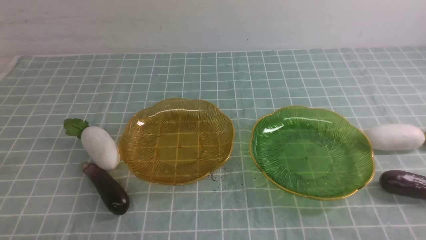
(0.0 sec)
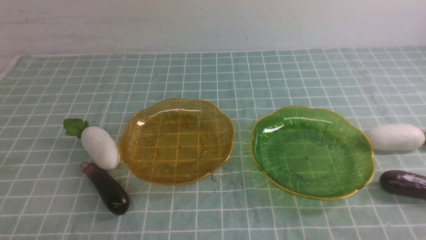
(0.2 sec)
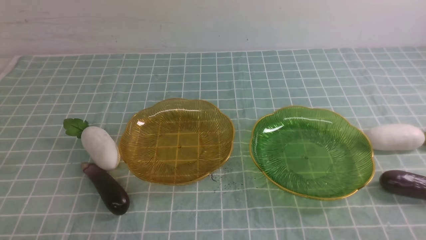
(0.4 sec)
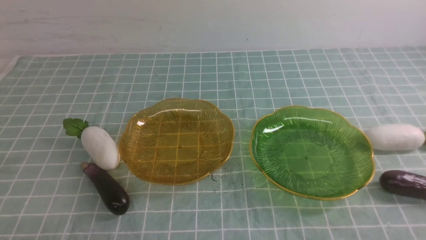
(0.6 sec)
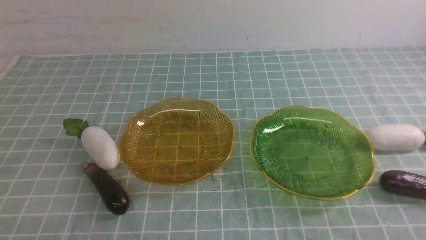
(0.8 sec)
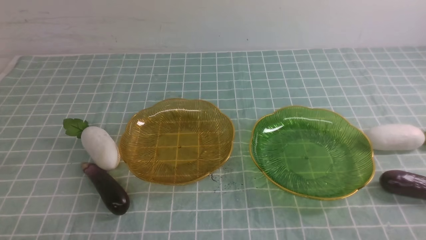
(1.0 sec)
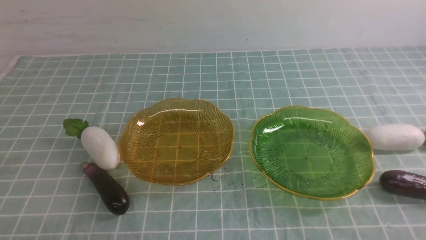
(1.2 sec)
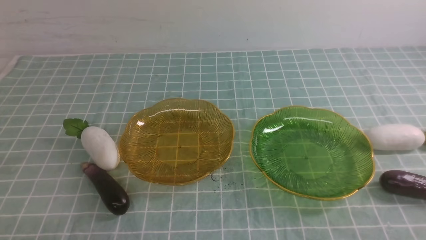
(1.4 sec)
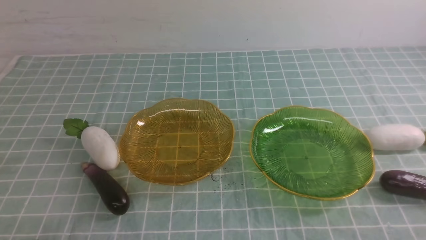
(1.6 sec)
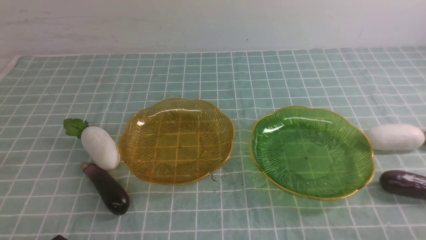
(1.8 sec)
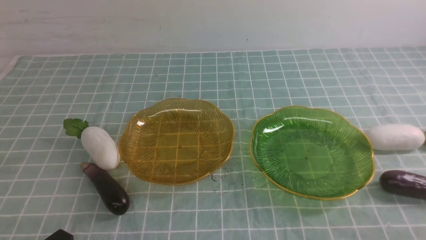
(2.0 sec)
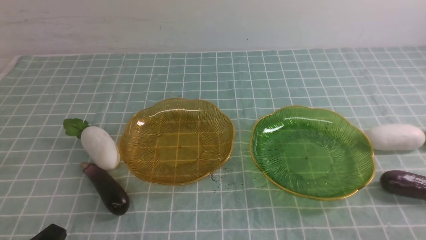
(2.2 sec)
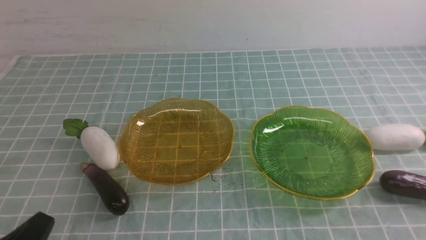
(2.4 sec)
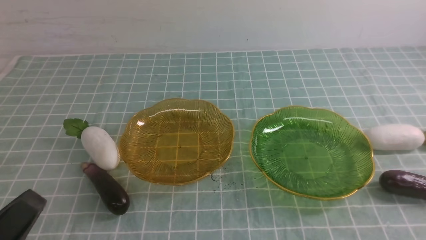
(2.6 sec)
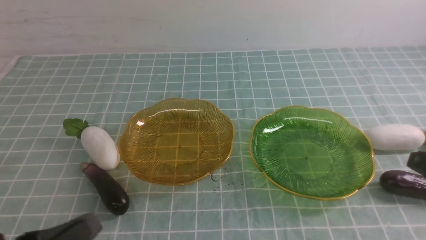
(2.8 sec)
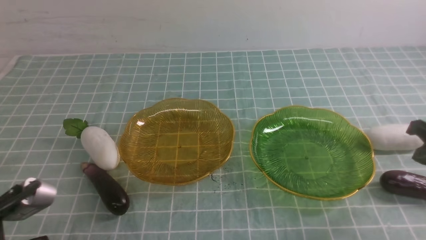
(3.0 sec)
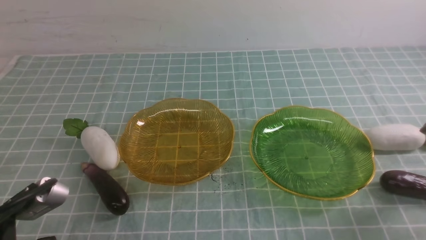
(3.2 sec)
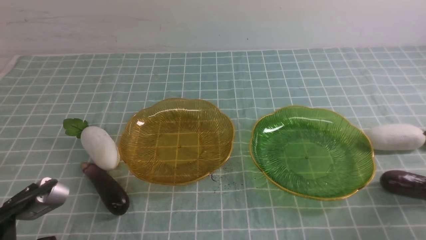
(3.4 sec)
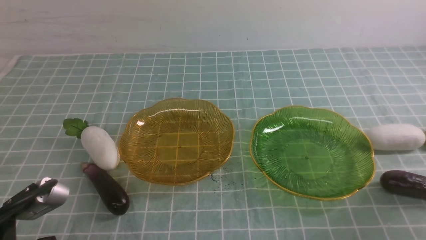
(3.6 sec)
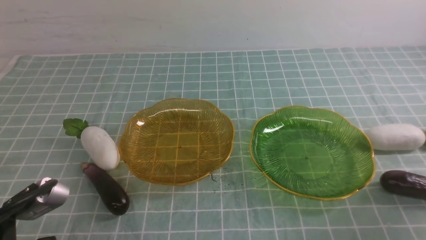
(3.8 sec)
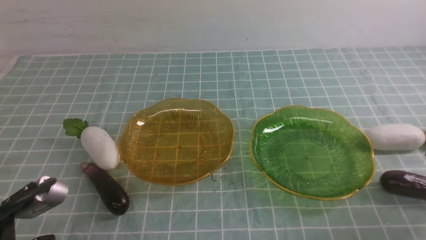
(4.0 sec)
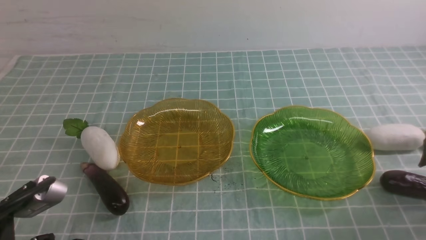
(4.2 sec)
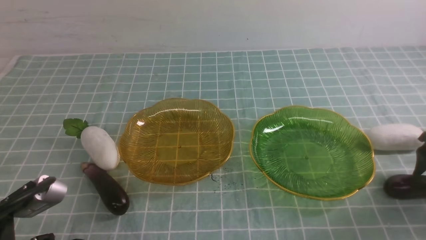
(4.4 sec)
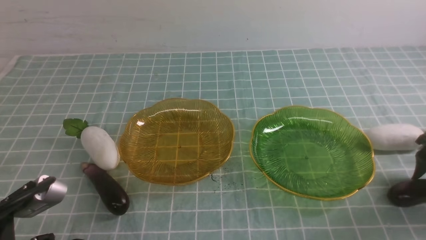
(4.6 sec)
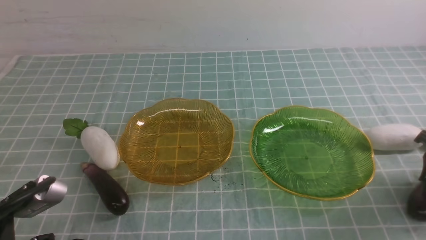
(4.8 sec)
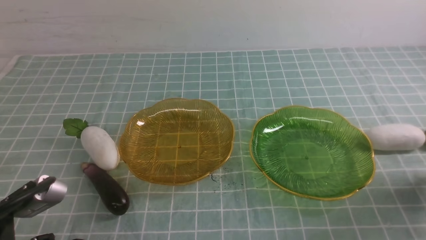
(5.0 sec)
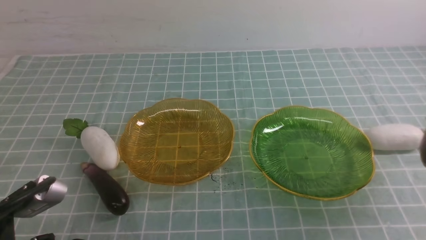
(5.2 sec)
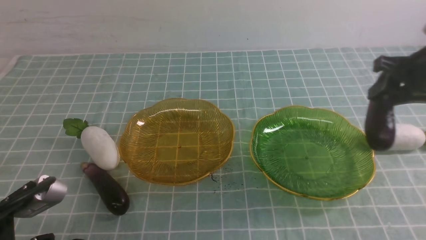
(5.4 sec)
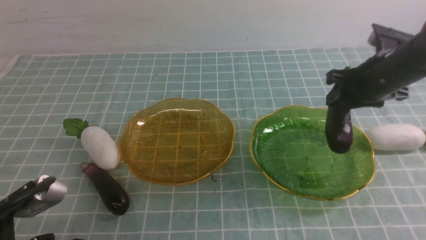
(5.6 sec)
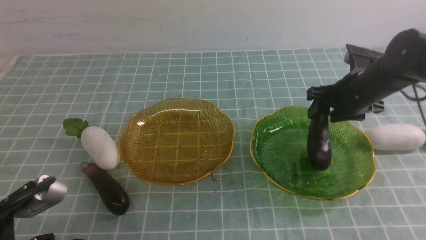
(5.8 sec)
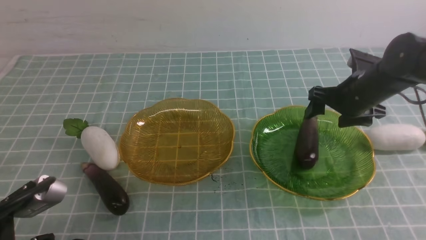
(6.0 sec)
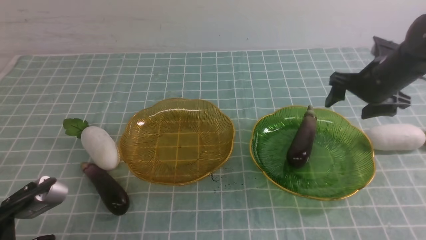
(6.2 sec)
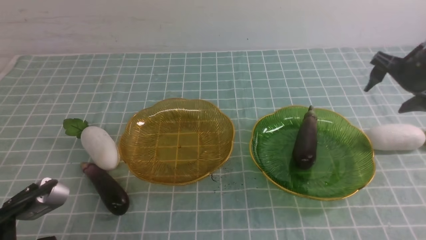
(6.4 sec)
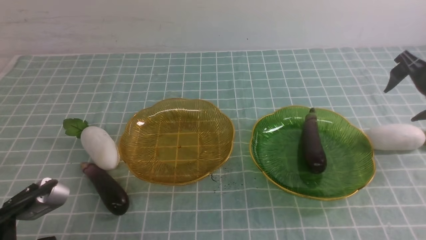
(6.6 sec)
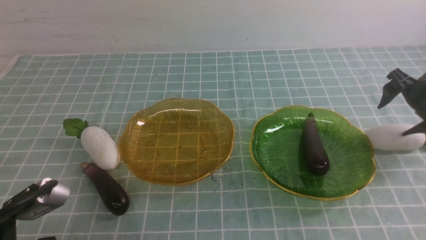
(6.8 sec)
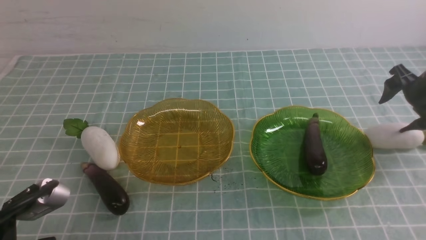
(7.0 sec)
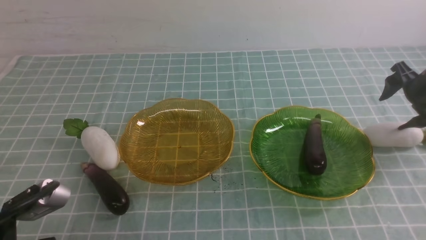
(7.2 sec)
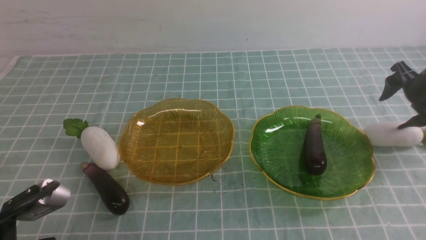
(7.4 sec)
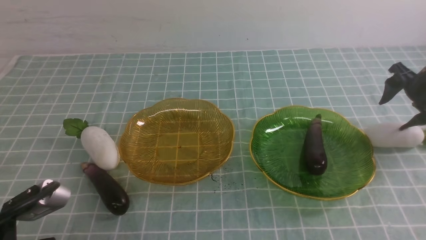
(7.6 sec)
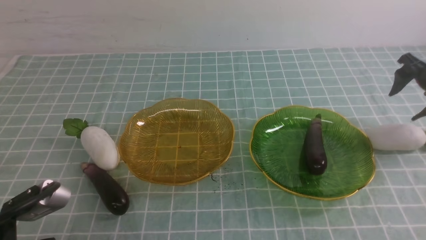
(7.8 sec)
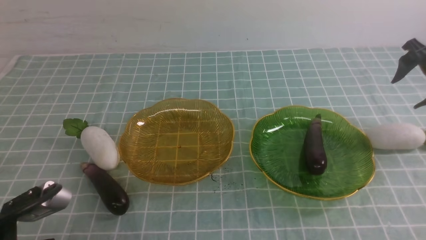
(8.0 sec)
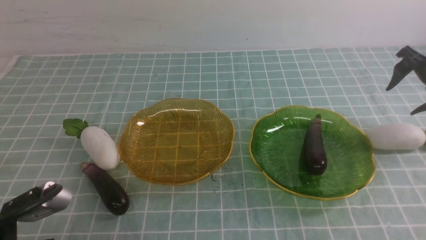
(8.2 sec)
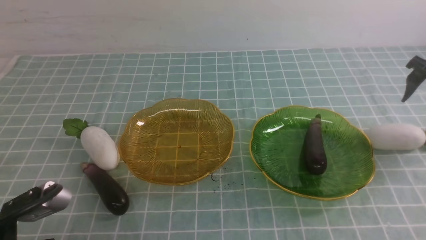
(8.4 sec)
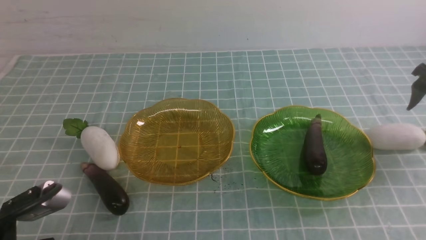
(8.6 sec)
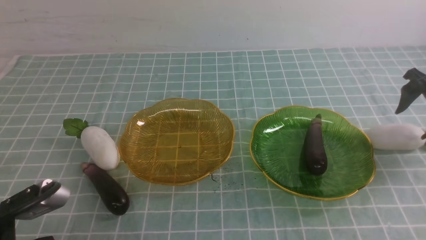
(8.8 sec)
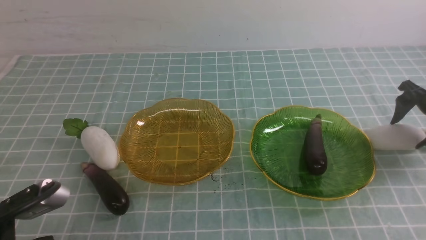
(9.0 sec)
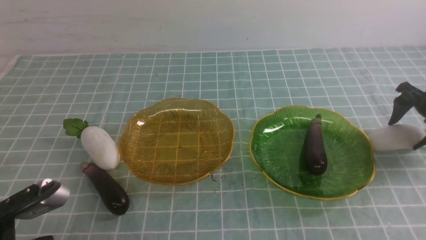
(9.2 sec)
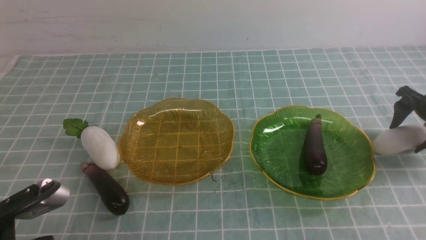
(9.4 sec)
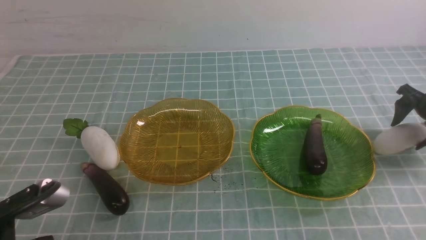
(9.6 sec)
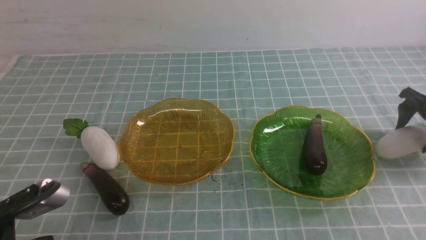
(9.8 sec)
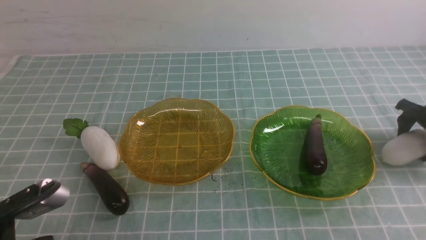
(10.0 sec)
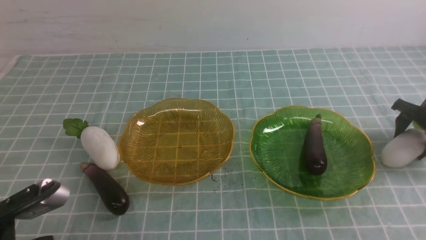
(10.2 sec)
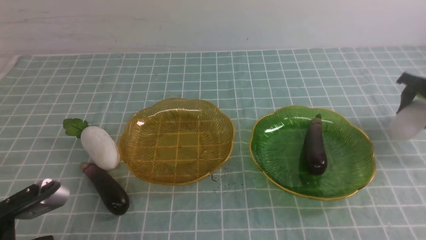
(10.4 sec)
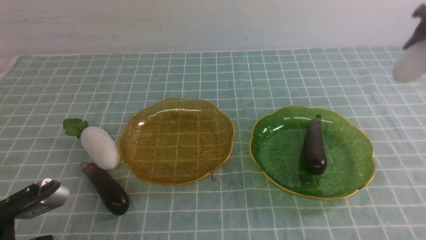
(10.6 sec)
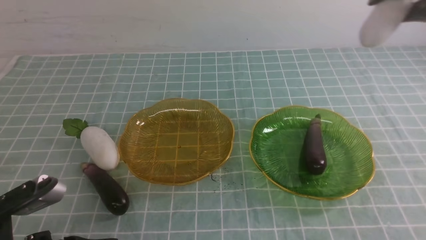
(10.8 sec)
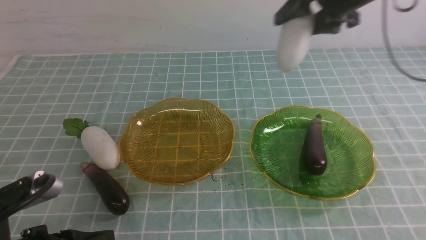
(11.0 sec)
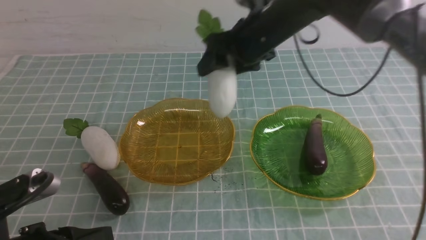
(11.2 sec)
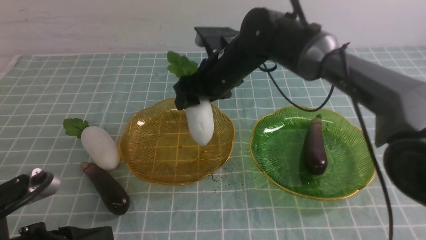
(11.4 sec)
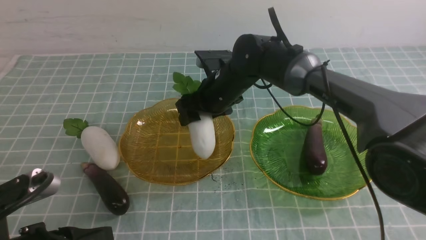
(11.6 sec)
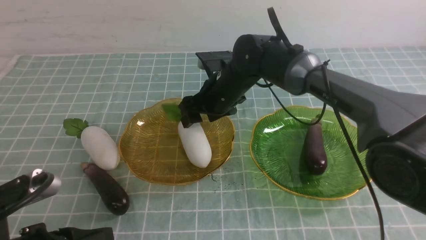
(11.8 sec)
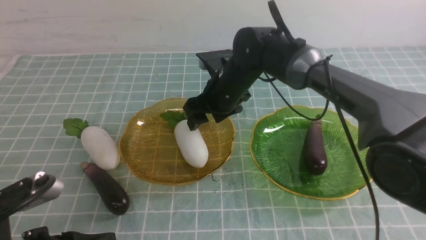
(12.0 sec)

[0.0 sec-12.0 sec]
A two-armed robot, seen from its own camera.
Step, 0.0 sec to 6.0 sec: use the right arm to grab an eggplant and put it into the right plate.
Step, 6.2 sec to 11.8 sec: use the right arm to grab a radish and put it into the left plate.
1.6 sec to 3.0 sec: The left gripper goes about 5 cm upward. The right gripper moves forward and upward, about 20 cm.
3.0 sec to 4.4 sec: The right gripper moves forward, to the right and downward, some 15 cm, and opens its fingers.
4.4 sec to 6.0 sec: The right gripper travels to the left and forward by about 20 cm, and closes and opens again.
6.0 sec to 7.6 sec: The right gripper travels to the right by about 15 cm.
7.6 sec to 9.0 sec: The grippers stay close to where they were, moving slightly.
9.0 sec to 10.4 sec: There are only small adjustments of the grippers.
10.4 sec to 12.0 sec: The right gripper shifts approximately 40 cm to the left.

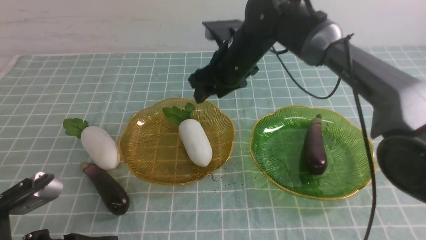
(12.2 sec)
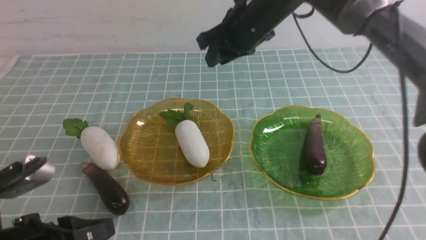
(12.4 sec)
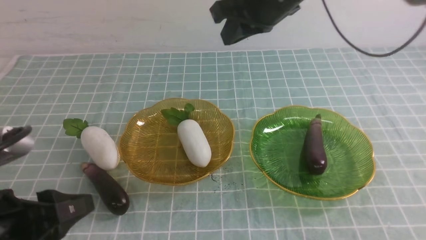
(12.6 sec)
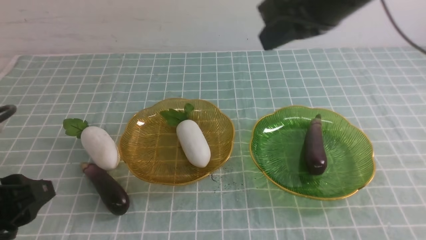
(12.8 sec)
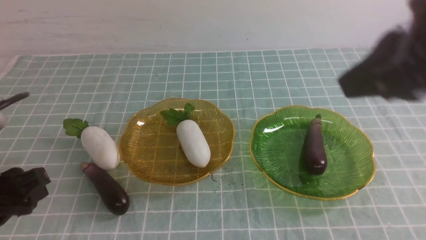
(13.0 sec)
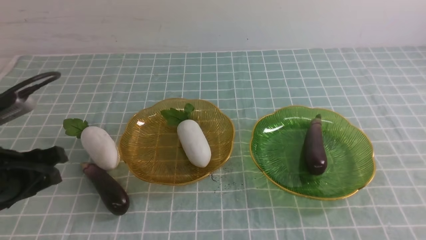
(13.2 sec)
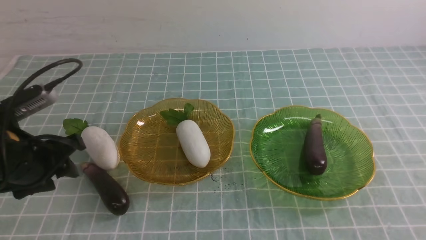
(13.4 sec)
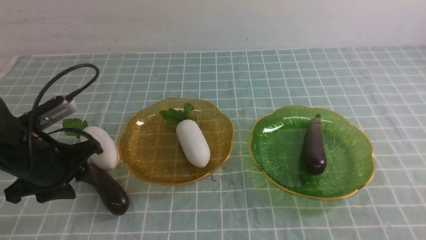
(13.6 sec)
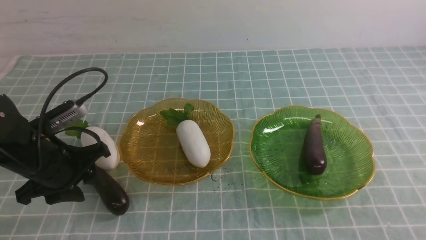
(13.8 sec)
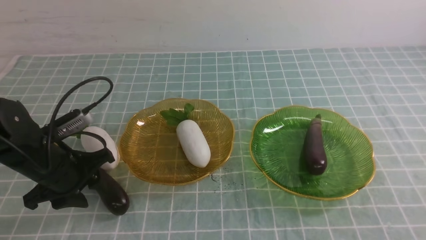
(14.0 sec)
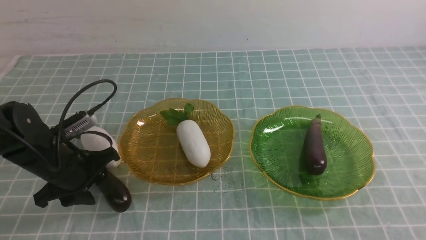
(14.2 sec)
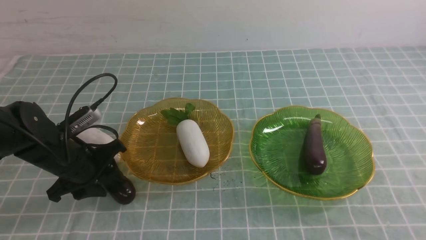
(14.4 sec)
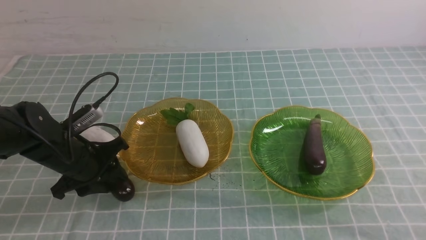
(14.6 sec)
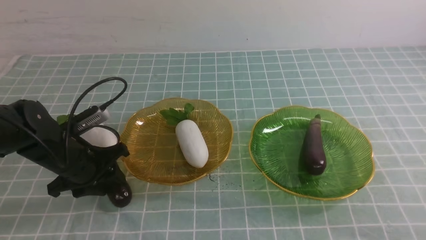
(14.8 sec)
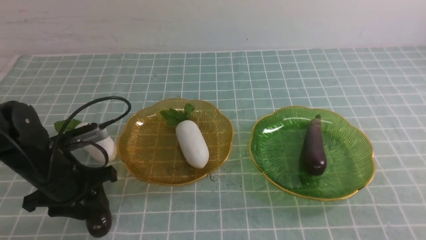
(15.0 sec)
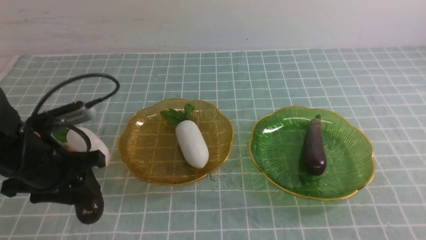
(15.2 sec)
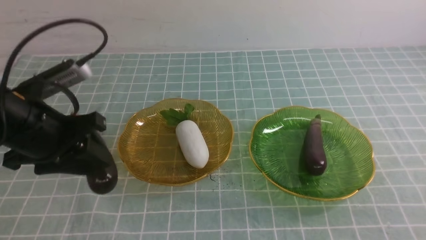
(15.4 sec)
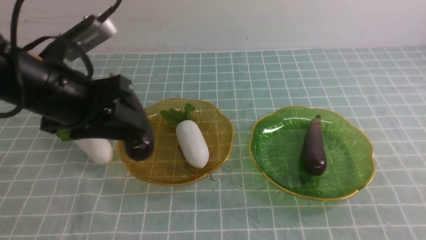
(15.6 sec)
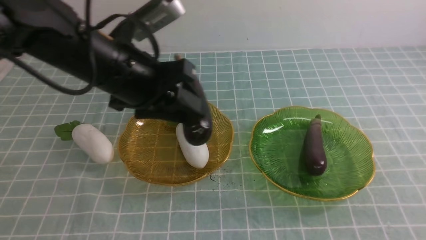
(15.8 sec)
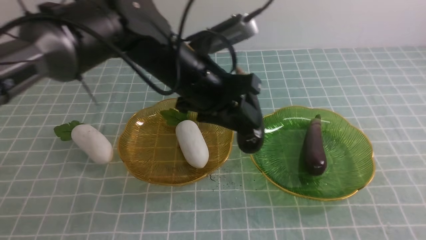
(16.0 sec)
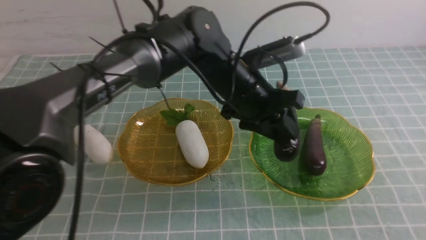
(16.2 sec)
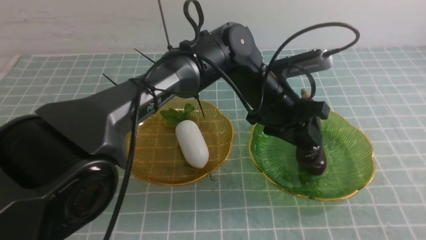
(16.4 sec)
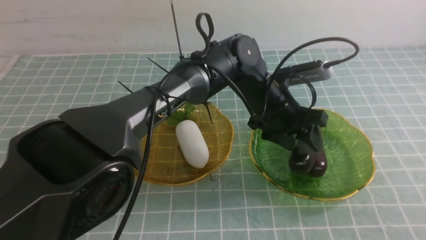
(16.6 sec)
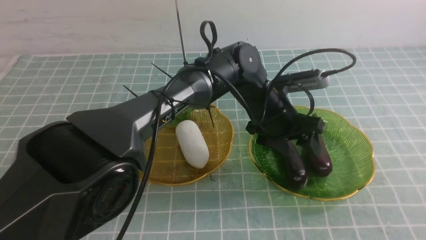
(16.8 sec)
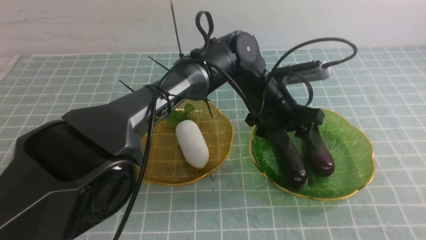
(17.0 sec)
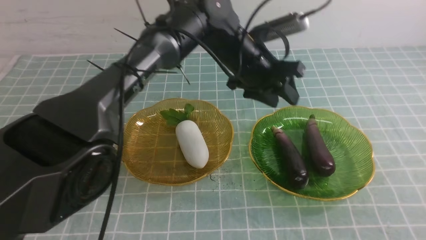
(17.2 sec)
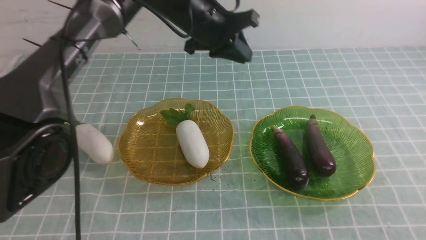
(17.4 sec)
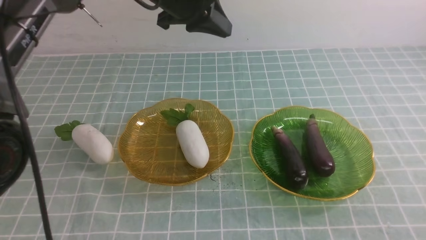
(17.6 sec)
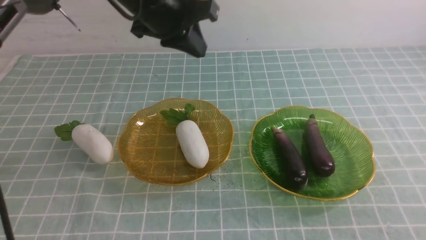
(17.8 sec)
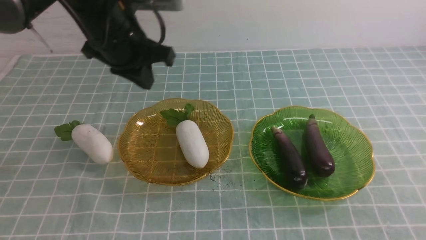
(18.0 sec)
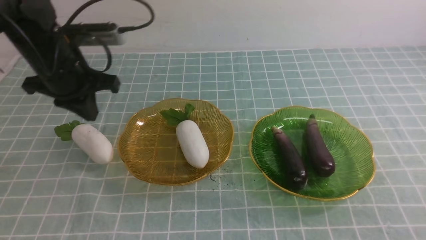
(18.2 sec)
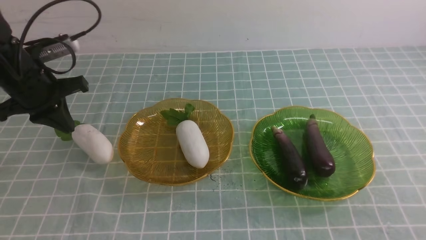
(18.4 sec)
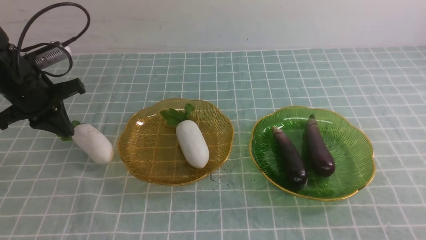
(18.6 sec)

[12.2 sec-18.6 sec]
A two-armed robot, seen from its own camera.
Step, 12.2 sec to 16.8 sec: use the left arm to grab an eggplant and put it into the right plate.
12.2 sec to 13.8 sec: The right gripper heads backward and to the right, covering some 50 cm, and closes. Meanwhile the left gripper shifts about 15 cm forward, and opens up.
13.8 sec to 15.4 sec: The left gripper travels upward by some 5 cm.
15.4 sec to 17.0 sec: The left gripper is displaced to the right and forward by about 30 cm.
17.0 sec to 18.6 sec: The left gripper travels to the left by roughly 35 cm, and closes its fingers.
